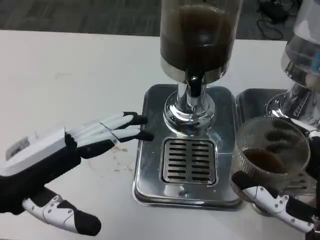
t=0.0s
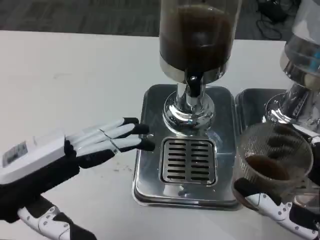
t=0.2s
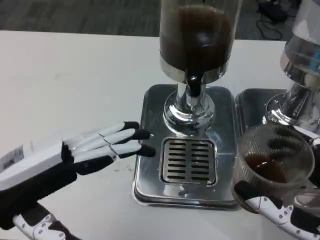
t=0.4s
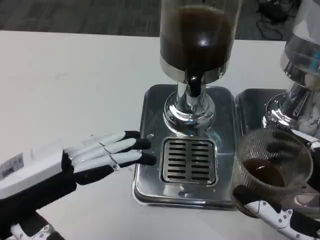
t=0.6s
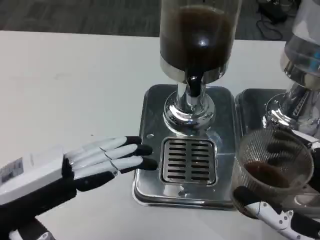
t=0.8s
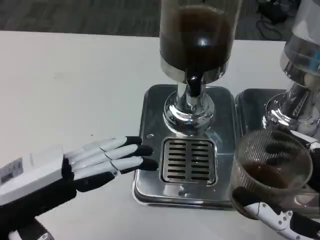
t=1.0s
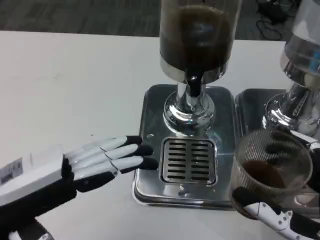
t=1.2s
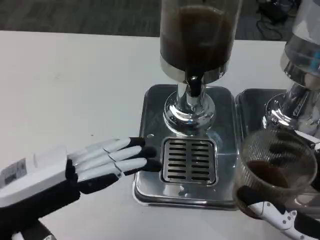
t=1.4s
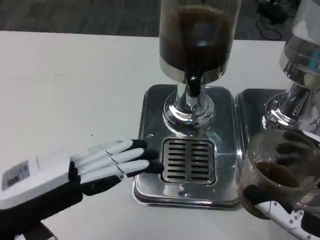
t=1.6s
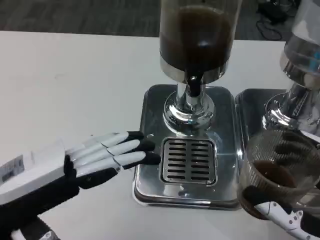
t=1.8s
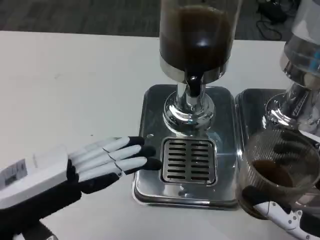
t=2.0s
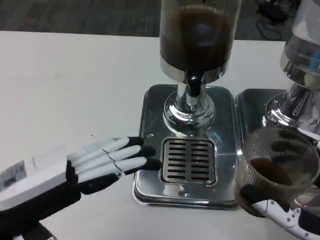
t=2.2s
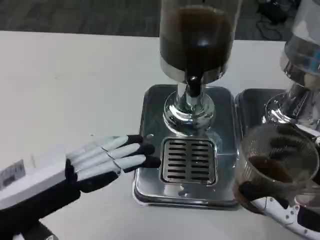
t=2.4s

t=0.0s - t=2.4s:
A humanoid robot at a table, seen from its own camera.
Task of the whole recording: Grasp the cup under the faucet to collect the drink, then remove the cup.
t=1.2s - t=2.4s: Both hands stay about where they are.

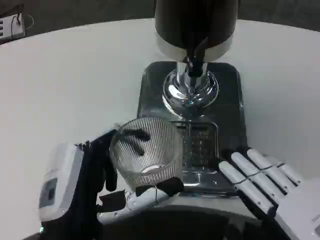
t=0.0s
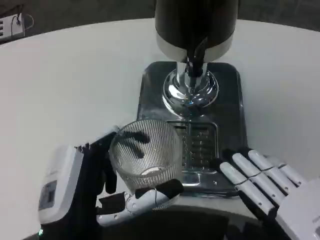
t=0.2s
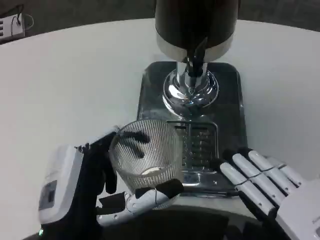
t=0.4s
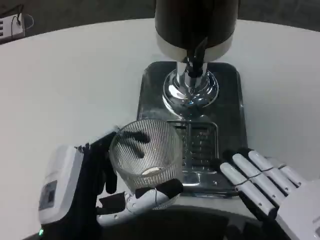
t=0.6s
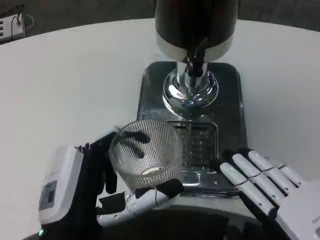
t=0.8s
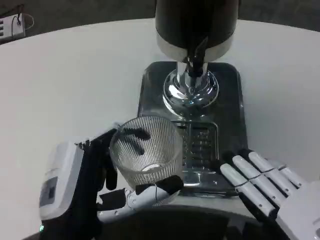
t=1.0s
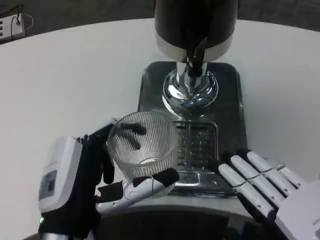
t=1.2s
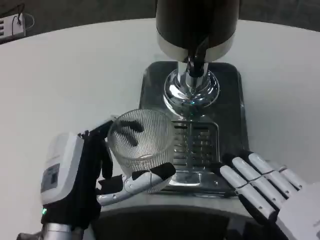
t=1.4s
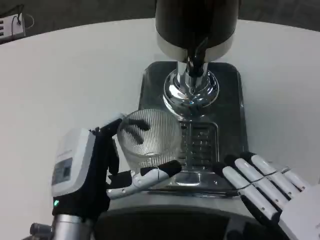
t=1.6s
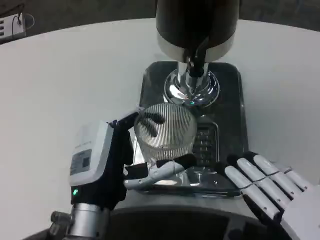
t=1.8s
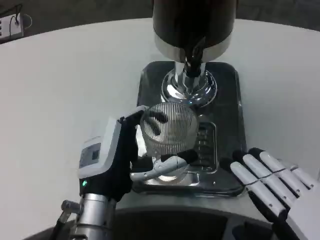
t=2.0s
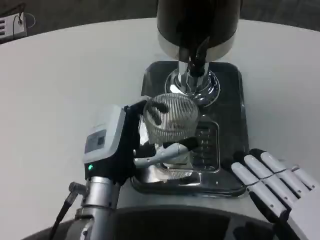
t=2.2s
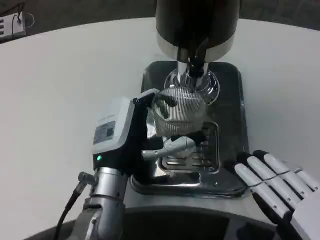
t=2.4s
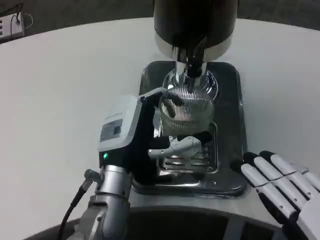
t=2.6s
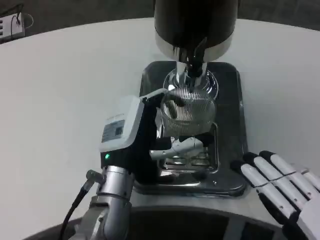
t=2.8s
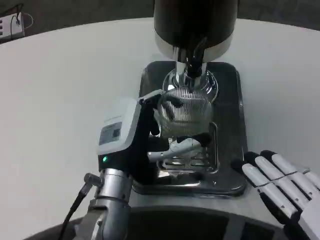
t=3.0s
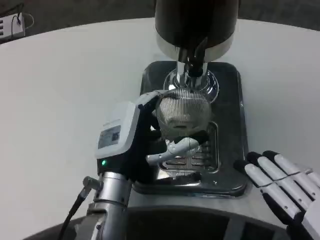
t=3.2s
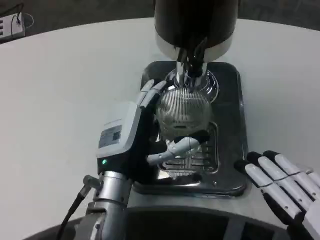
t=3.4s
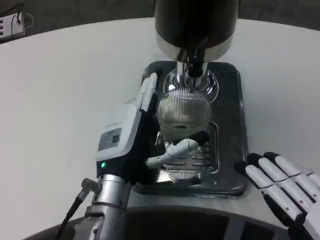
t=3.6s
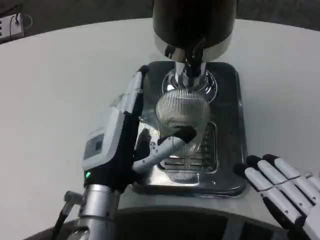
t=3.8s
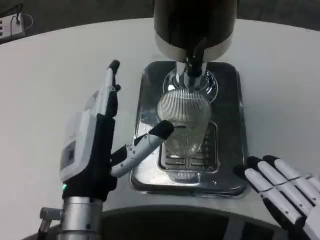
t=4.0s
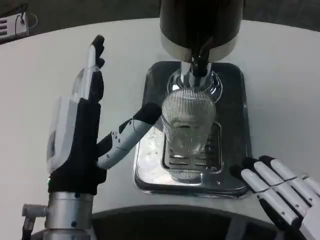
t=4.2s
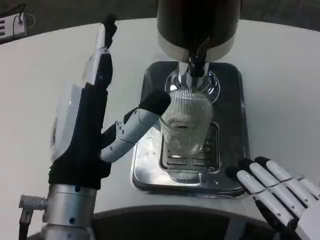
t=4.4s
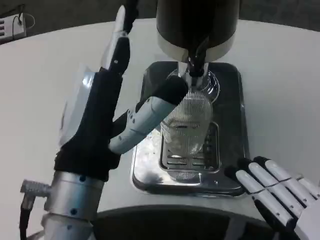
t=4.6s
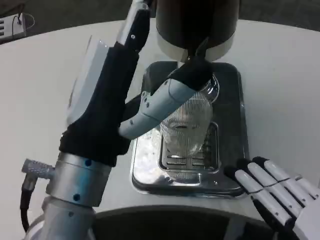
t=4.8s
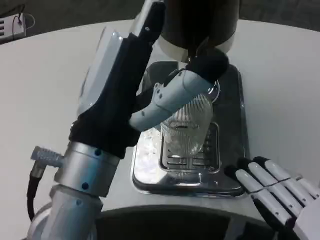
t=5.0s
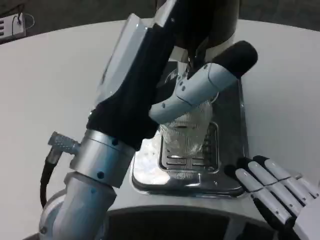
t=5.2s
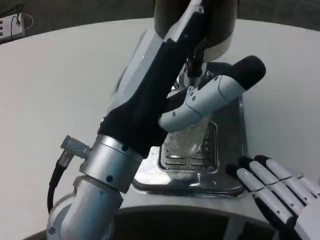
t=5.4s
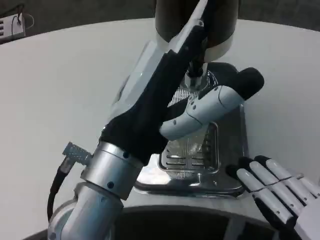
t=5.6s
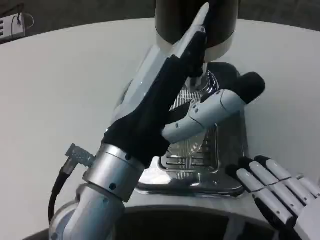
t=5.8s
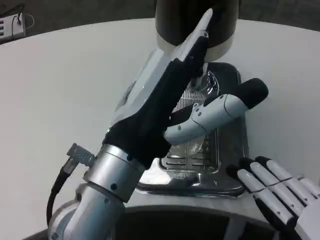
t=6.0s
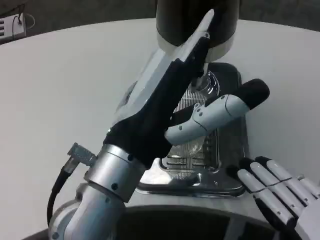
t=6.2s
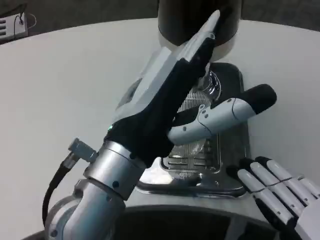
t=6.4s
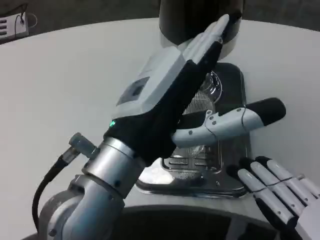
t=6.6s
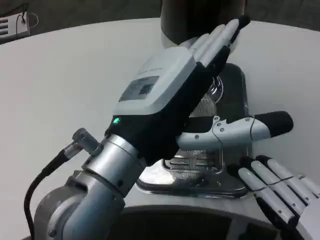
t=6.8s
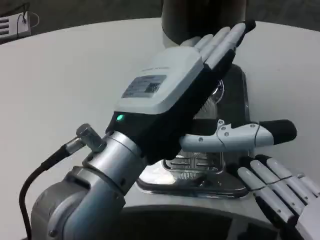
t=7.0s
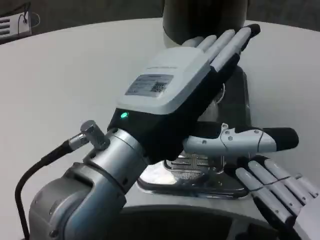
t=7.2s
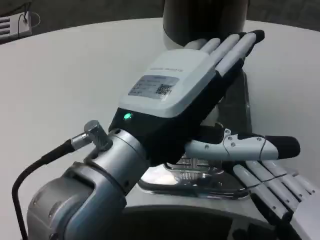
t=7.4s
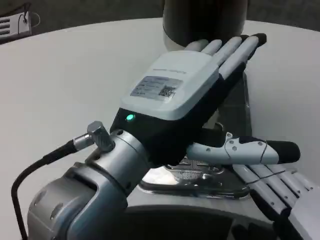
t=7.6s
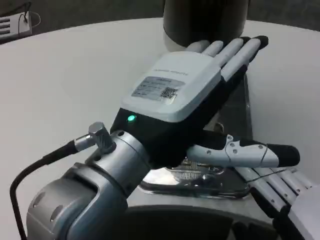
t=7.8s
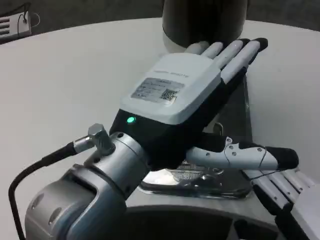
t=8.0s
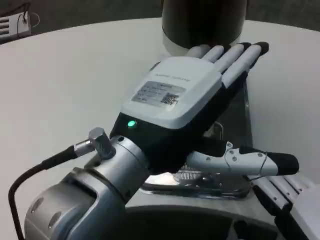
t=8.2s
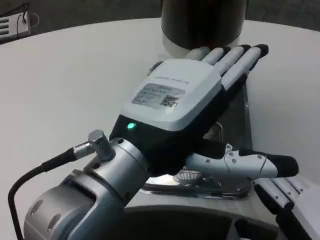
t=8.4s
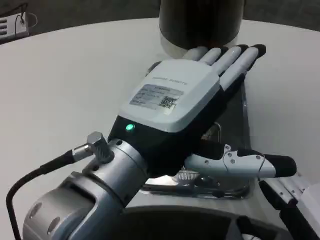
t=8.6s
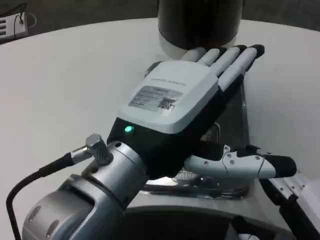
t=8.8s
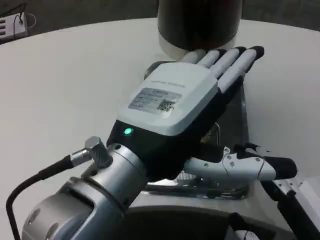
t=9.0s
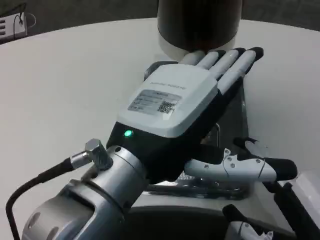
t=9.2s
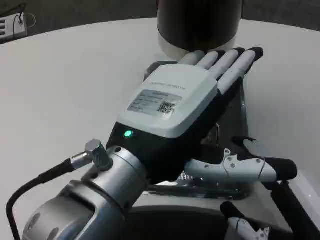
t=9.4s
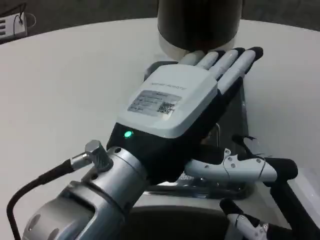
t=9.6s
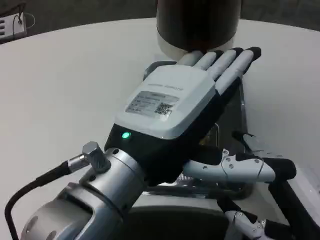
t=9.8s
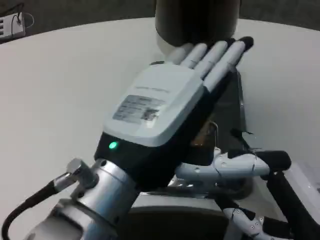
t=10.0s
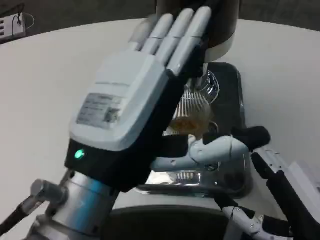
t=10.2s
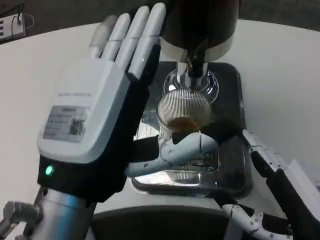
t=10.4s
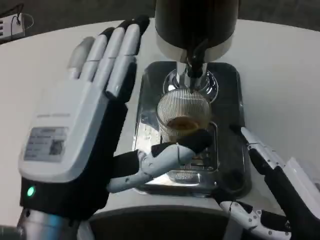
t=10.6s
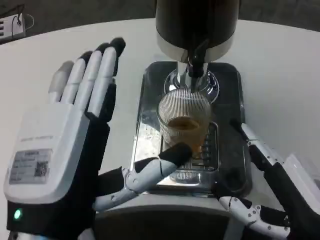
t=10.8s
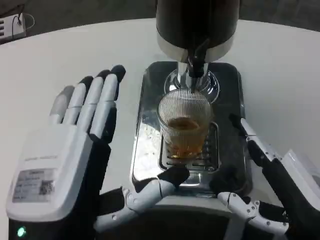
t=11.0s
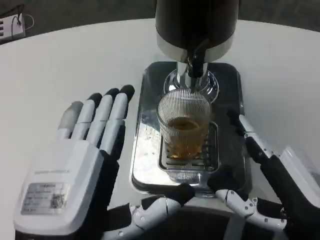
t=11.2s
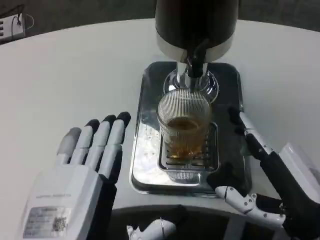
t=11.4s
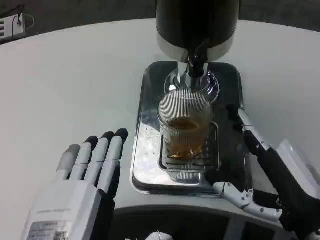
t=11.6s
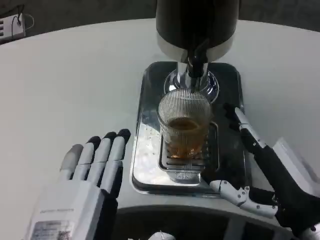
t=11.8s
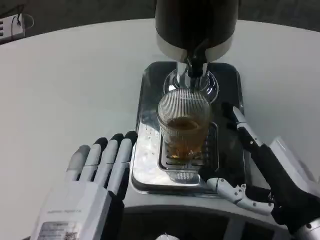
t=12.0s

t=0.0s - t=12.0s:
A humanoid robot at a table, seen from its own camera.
Task of the whole recording: Grasp the cup under the faucet to collect the drink, then remove the cup.
t=0.0s - t=1.6s: There are only small adjustments of the hands.
t=1.6s - t=3.0s: The left hand goes roughly 5 cm forward.
t=3.0s - t=4.4s: The left hand is displaced backward and upward by roughly 10 cm.
t=4.4s - t=6.0s: The left hand ends up roughly 5 cm from where it was.
t=9.0s - t=10.4s: The left hand shifts by some 5 cm.
t=10.4s - t=12.0s: The left hand shifts some 10 cm downward.

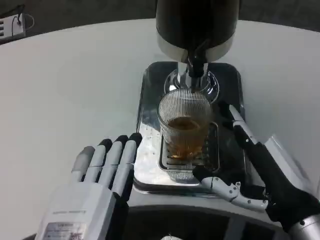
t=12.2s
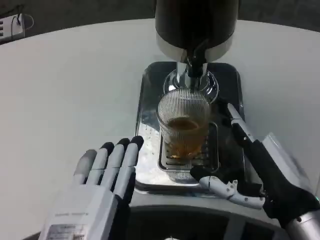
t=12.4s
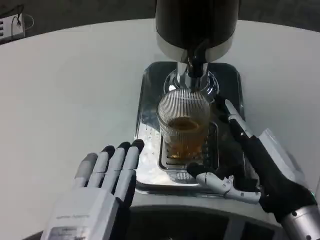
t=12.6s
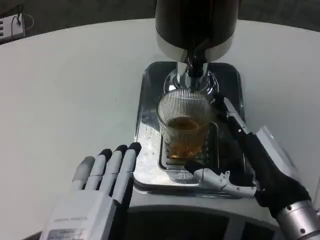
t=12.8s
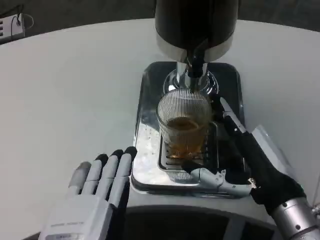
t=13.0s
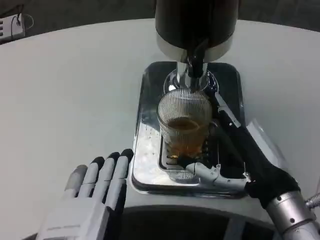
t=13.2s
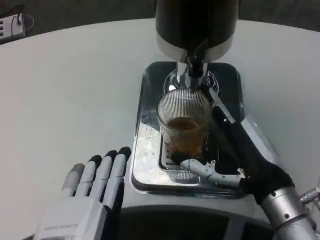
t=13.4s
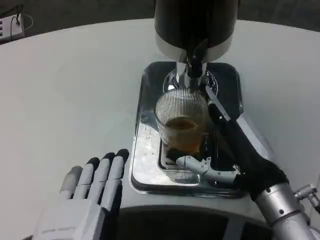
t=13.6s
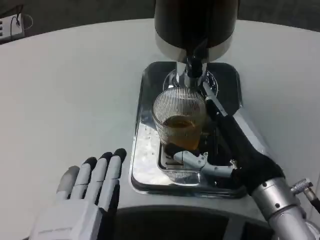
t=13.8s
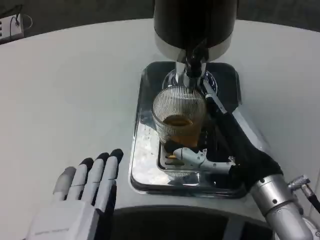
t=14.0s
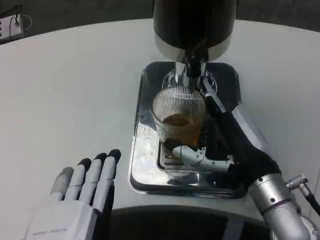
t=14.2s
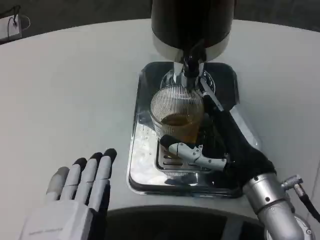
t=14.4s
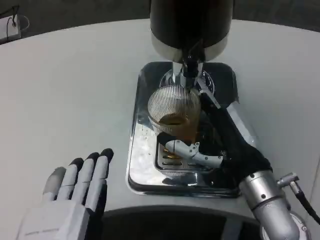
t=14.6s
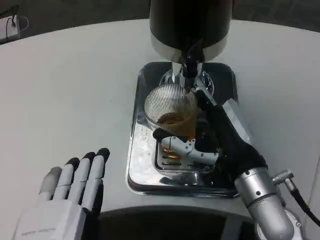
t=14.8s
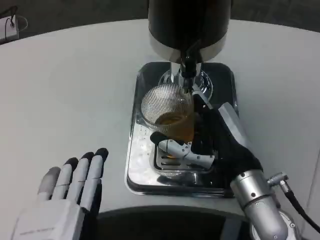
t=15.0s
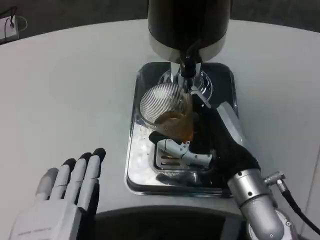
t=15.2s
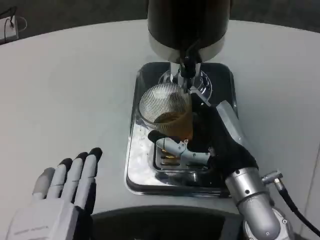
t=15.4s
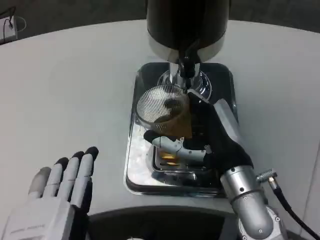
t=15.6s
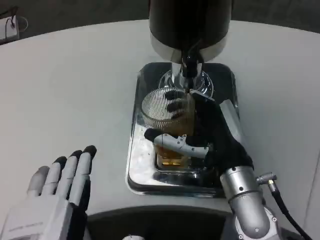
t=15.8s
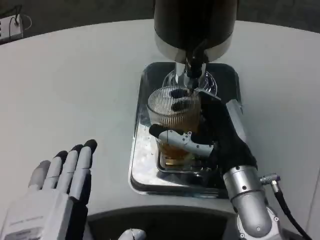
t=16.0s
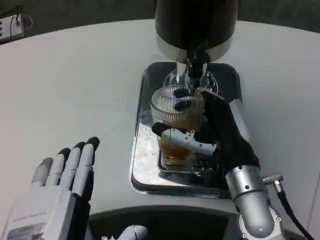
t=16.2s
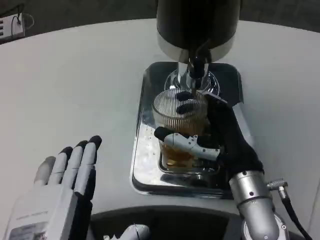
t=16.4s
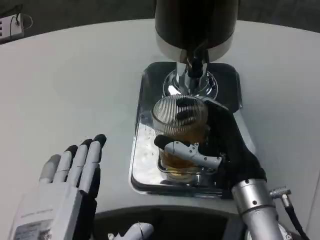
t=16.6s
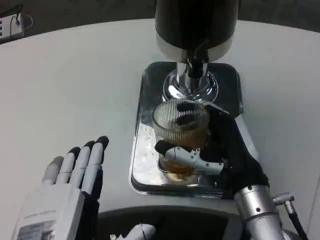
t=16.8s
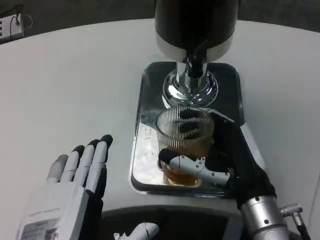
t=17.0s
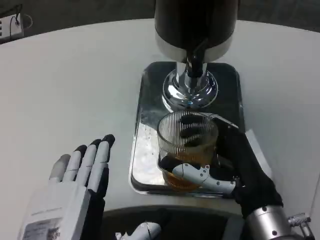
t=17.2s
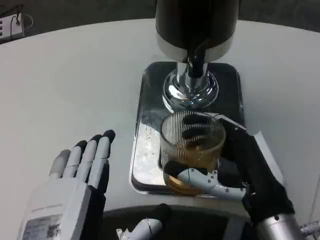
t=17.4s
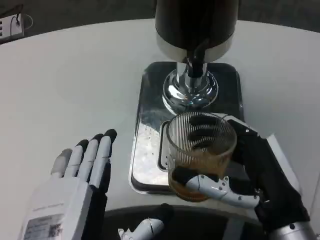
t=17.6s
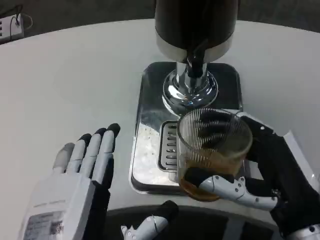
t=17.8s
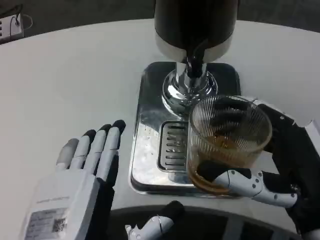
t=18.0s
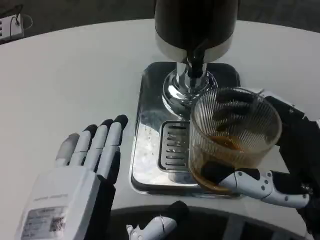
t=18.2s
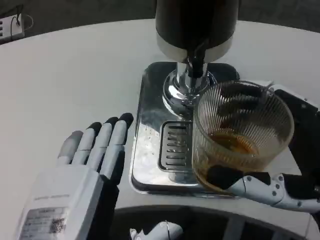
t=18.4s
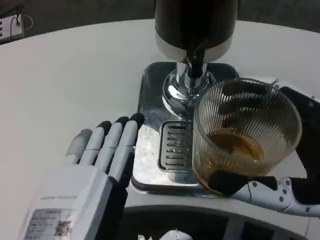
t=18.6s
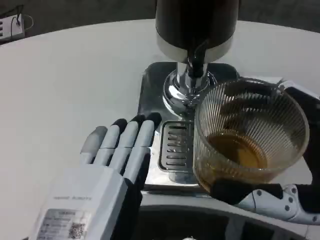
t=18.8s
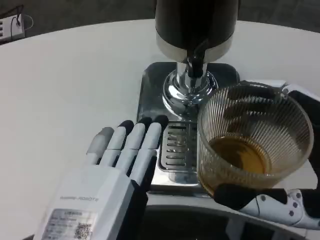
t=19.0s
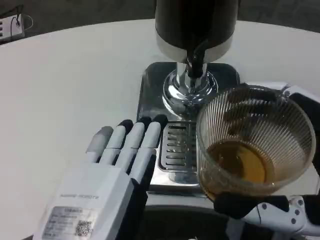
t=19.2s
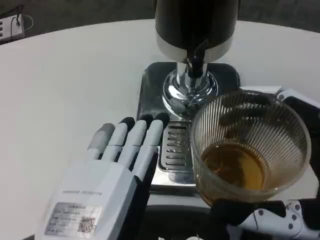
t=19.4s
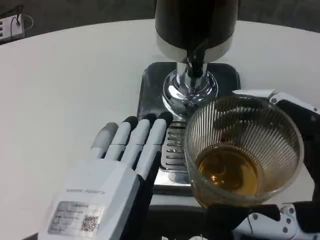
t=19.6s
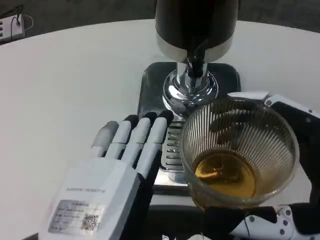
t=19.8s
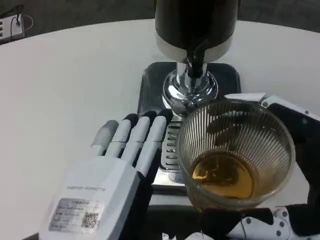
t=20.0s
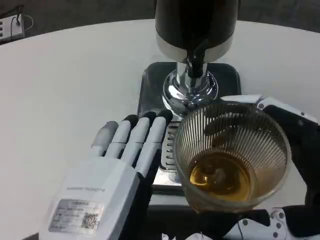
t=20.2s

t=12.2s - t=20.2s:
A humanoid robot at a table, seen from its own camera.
Task of the whole recording: Grasp the cup under the faucet to collect the drink, then remove the cup.
t=12.2s - t=13.8s: The right hand travels forward by approximately 5 cm.
t=17.0s - t=18.6s: The right hand travels backward, to the right and upward by some 15 cm.
